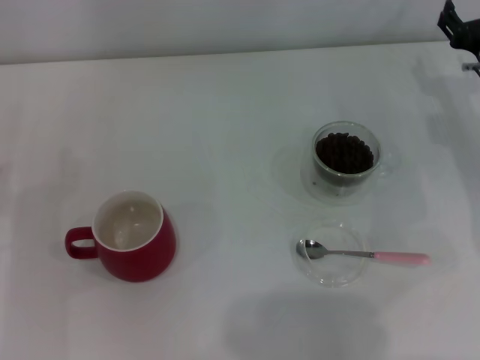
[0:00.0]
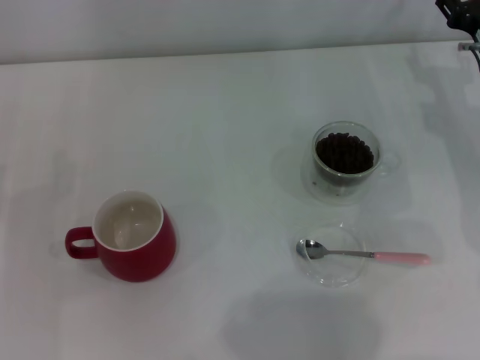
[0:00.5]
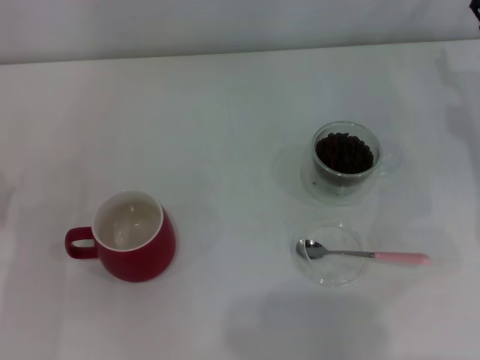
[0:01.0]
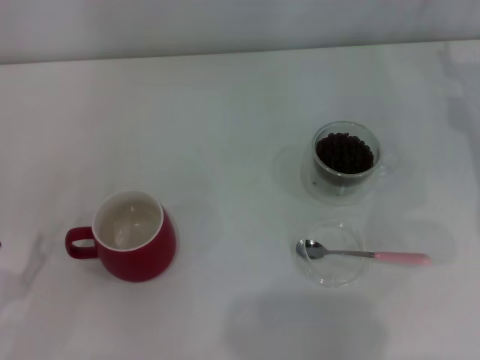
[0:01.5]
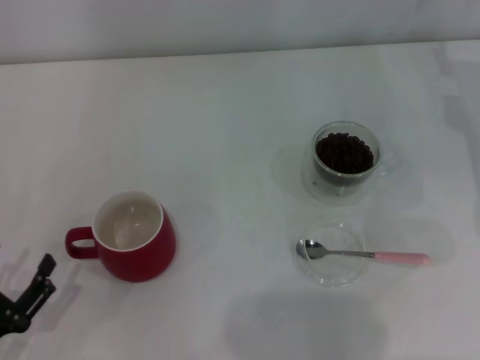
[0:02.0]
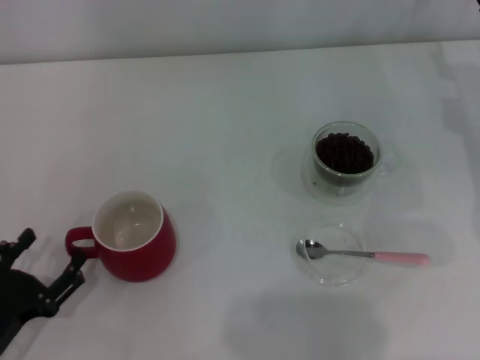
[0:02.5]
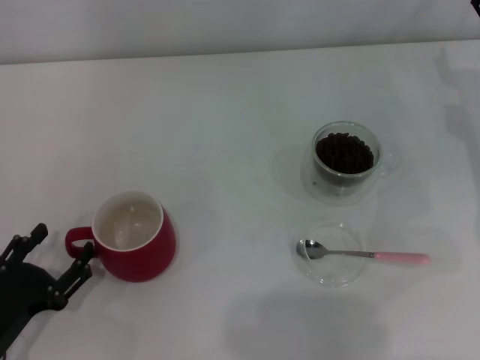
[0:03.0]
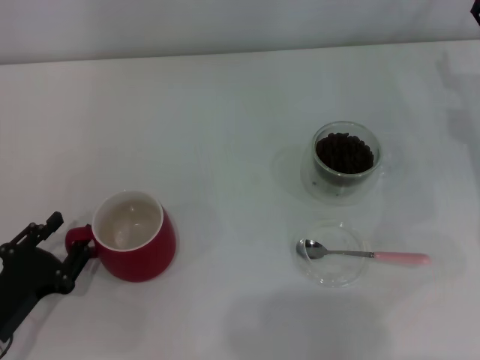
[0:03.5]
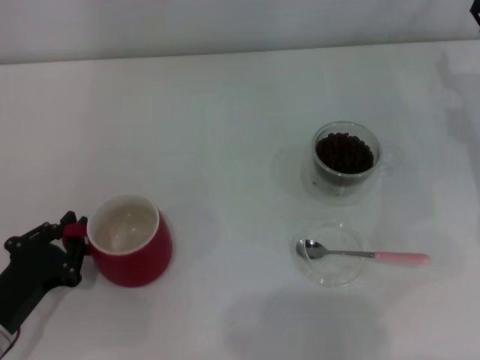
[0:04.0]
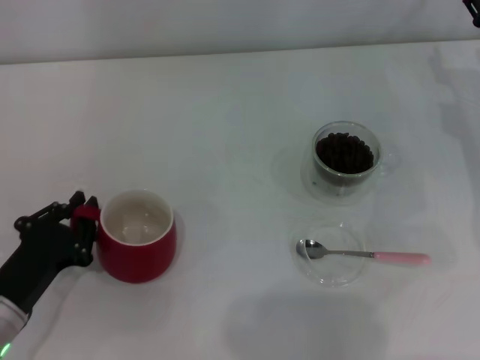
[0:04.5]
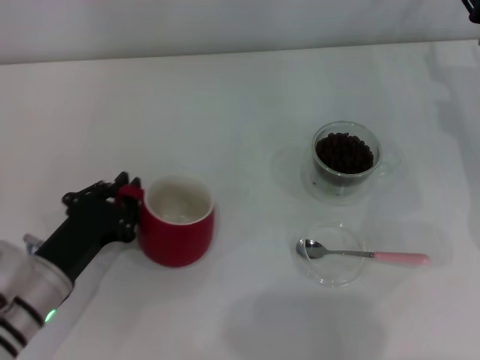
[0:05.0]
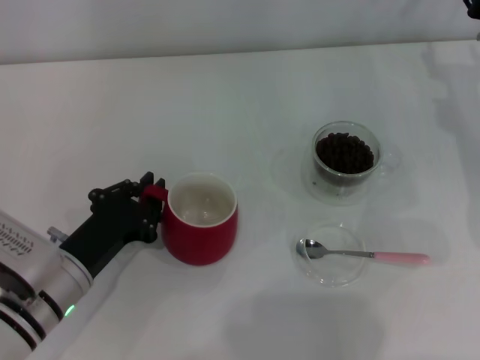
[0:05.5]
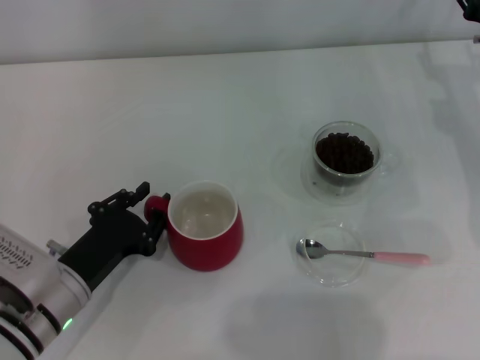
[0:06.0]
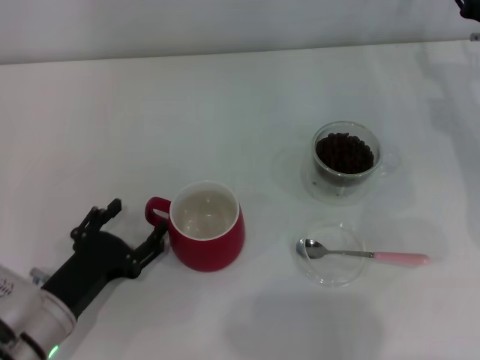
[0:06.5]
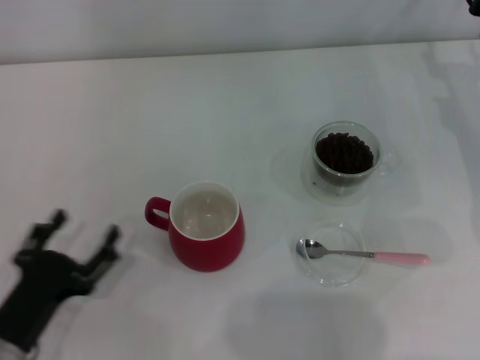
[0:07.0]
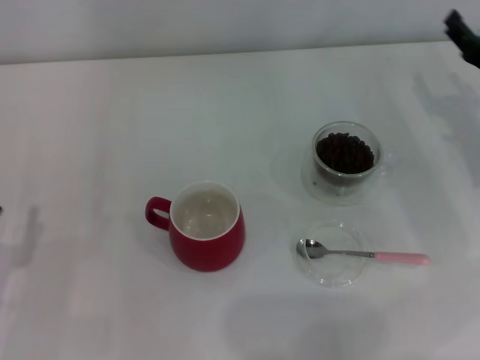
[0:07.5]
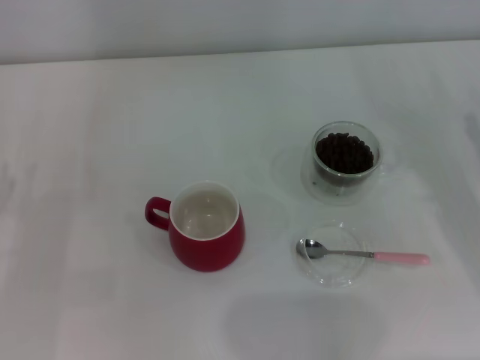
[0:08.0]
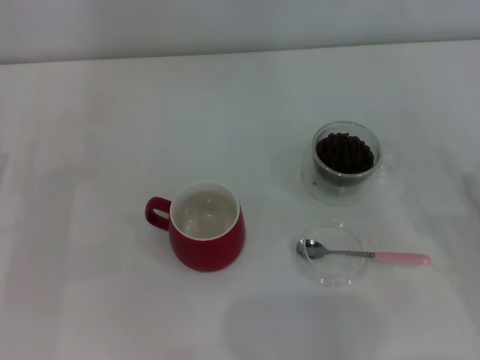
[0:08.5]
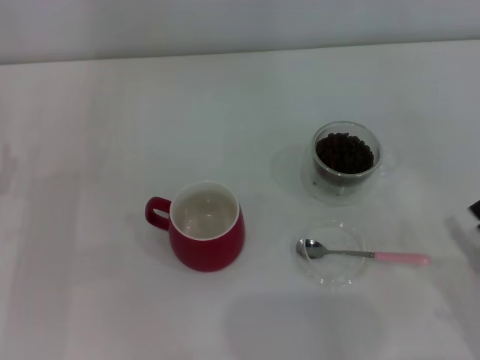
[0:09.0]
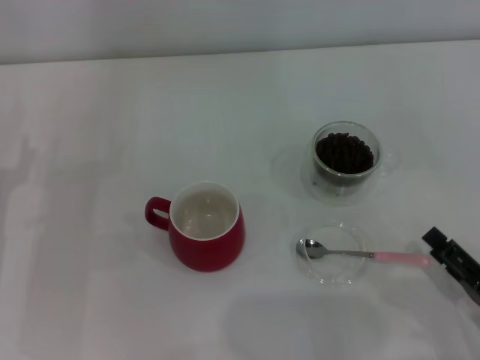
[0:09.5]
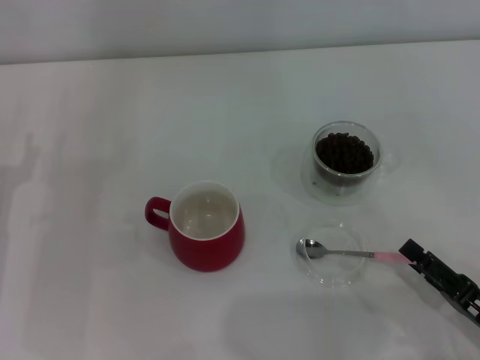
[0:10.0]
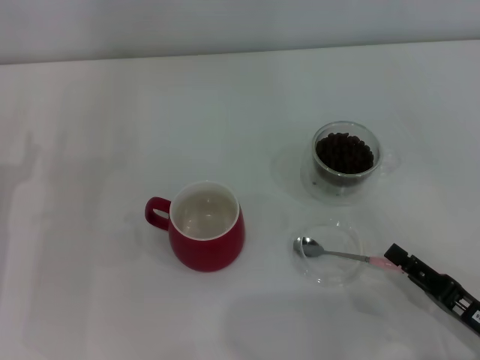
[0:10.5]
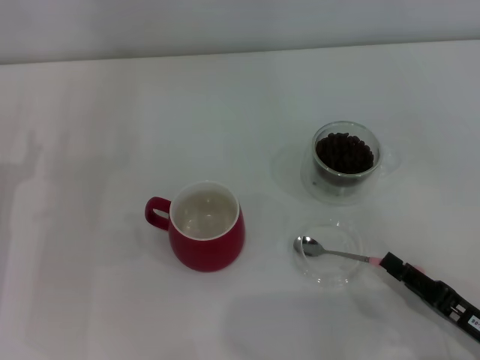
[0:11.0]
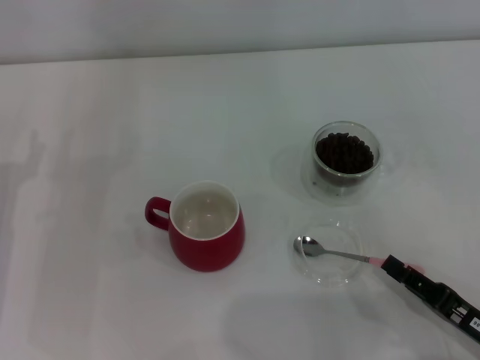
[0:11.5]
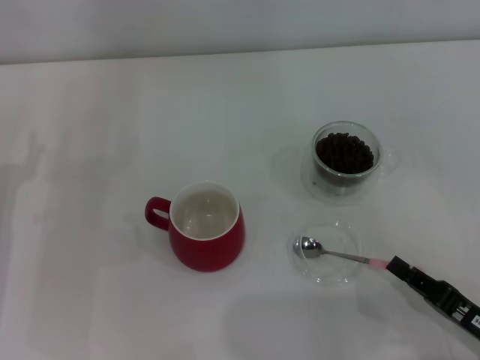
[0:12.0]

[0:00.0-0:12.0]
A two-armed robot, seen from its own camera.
Task of the whole recording: Use a pink spoon to take out the coffee beans from the glass and pour them into the red cup.
Step, 0:00.0 to 0:06.5: Move the cup to the center of view with the left gripper.
0:00.0 to 0:02.0: The left gripper is displaced backward by roughly 10 cm.
0:02.0 to 0:04.0: The left gripper goes roughly 5 cm forward, and closes its fingers.
0:04.0 to 0:06.0: The left gripper heads to the right, covering roughly 5 cm.
0:06.0 to 0:08.0: The right gripper moves backward, about 15 cm, while the left gripper travels to the left by roughly 10 cm, and opens up.
0:08.0 to 0:10.0: The right gripper travels backward and to the left by about 15 cm.
0:10.0 to 0:12.0: The right gripper closes.

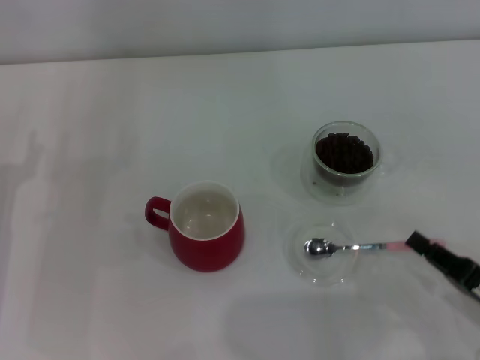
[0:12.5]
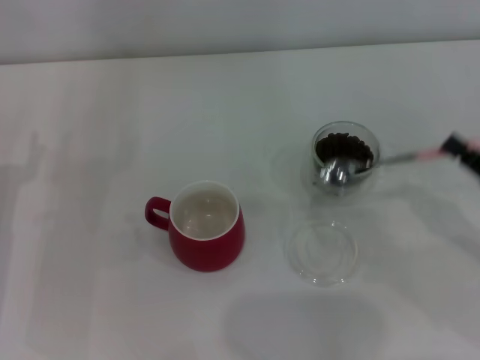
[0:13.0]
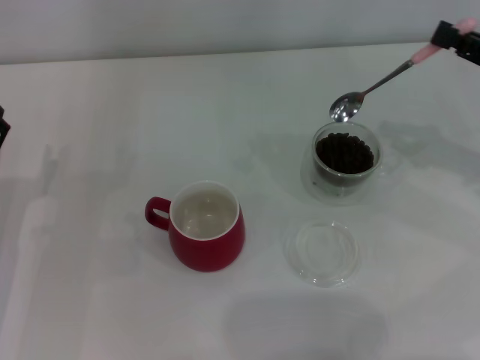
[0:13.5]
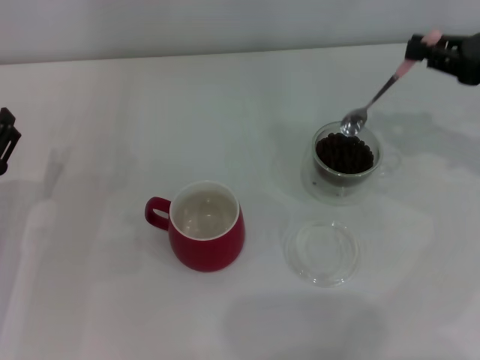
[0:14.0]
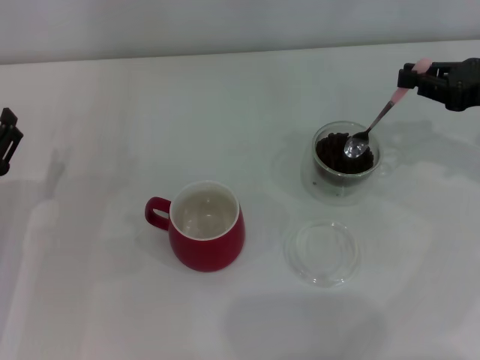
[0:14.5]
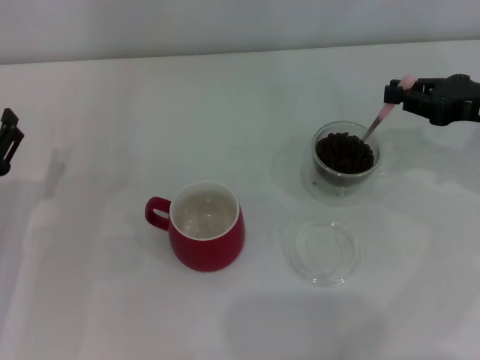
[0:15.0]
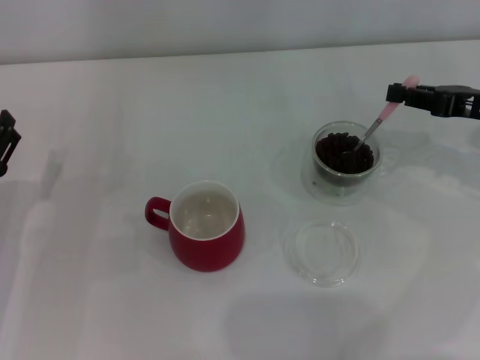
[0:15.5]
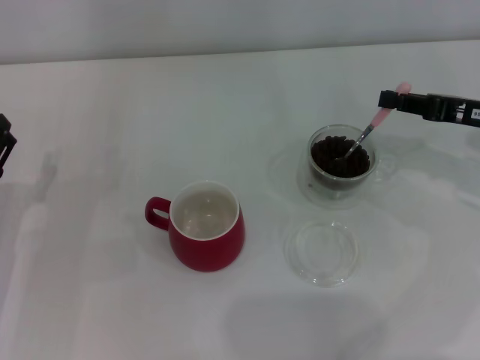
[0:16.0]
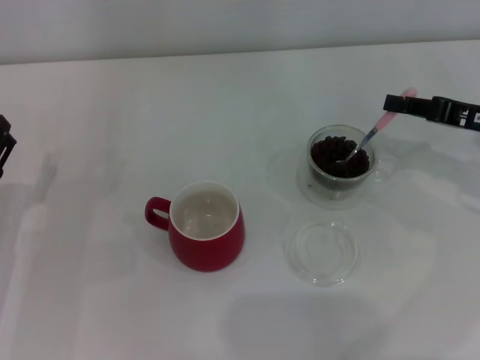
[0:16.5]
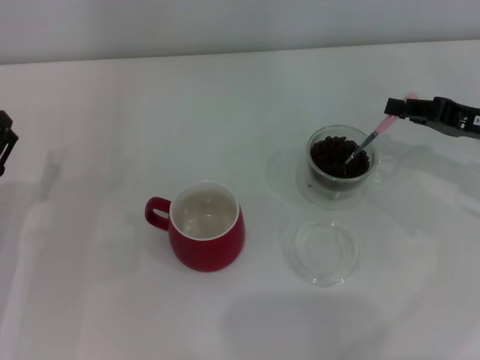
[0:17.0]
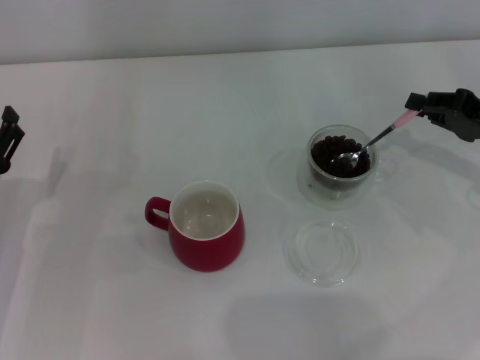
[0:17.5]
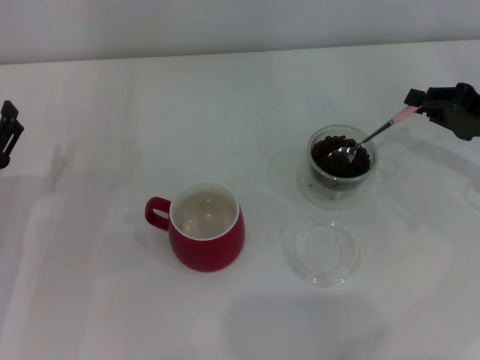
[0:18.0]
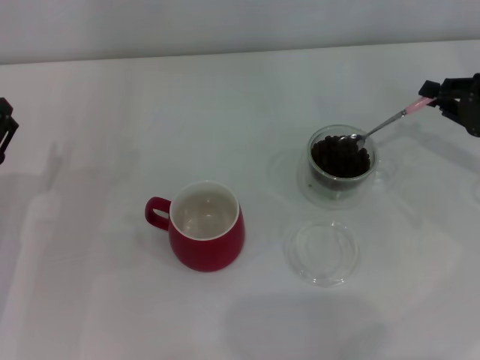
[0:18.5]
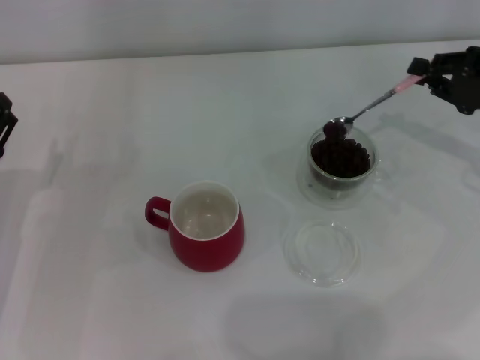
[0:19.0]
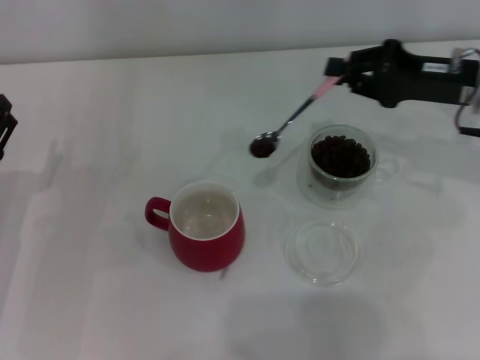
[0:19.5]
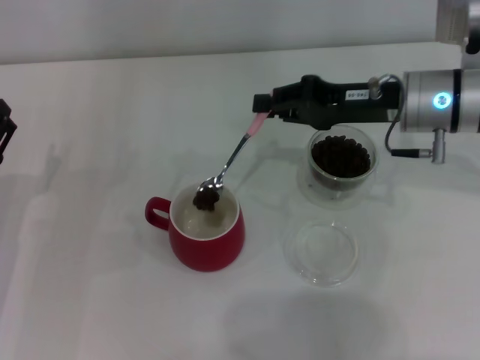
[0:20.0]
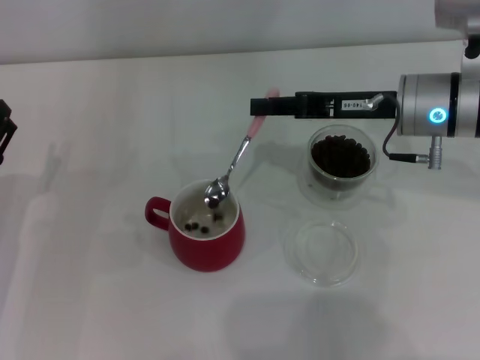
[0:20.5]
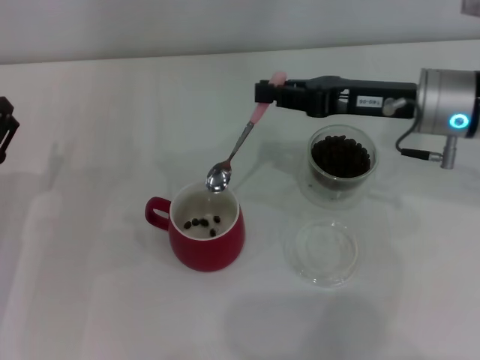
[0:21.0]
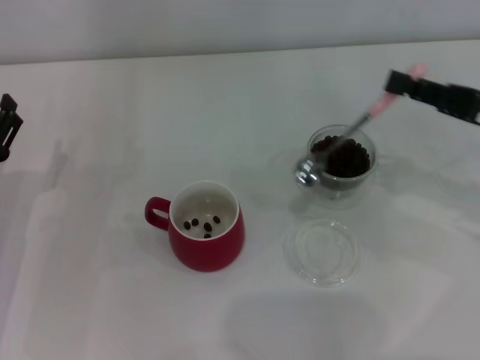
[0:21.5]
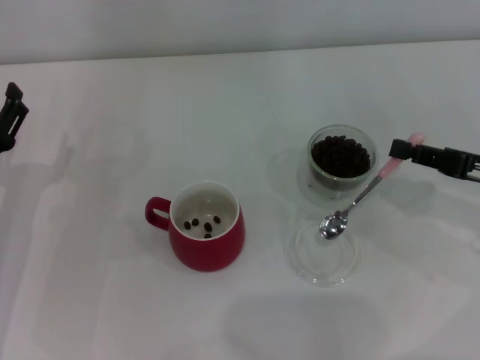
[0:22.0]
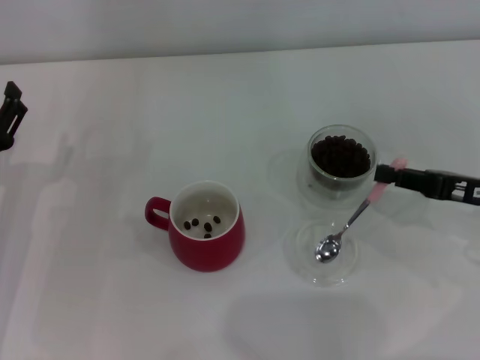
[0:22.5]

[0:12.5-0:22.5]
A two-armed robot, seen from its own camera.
Task of the whole recording: Use a pink spoon to take out the coffee beans from the glass and pour them into the red cup.
Step, 0:13.0 to 0:20.5: Scoop a spoonful of beans into the cup with the right gripper.
0:12.5 to 0:14.5: The right gripper moves forward and upward, approximately 25 cm.
0:18.5 to 0:20.5: The right gripper travels to the left by approximately 15 cm.
0:20.5 to 0:22.5: The right gripper heads to the right, backward and downward, covering roughly 15 cm.

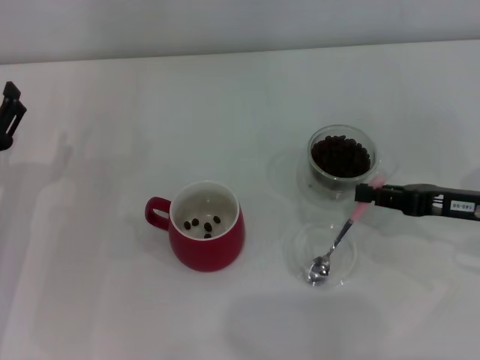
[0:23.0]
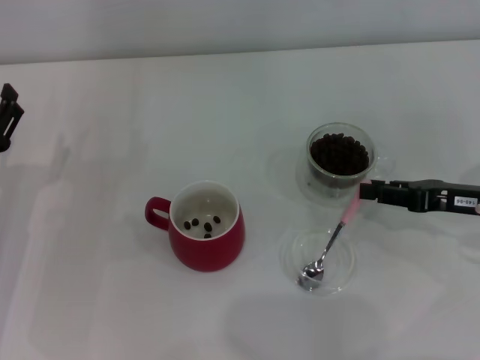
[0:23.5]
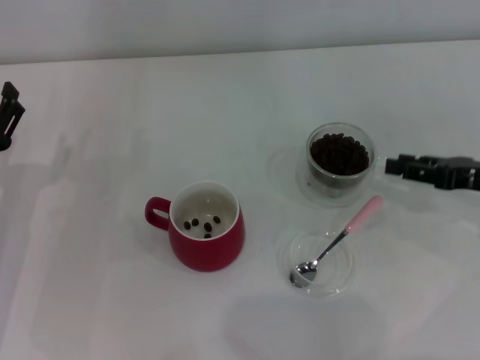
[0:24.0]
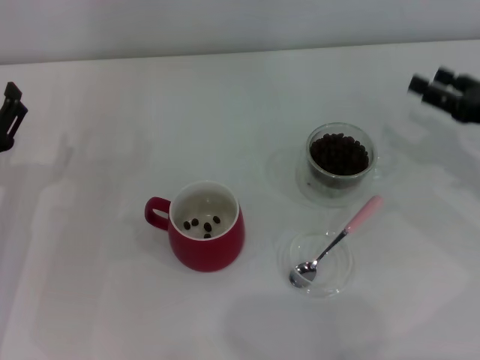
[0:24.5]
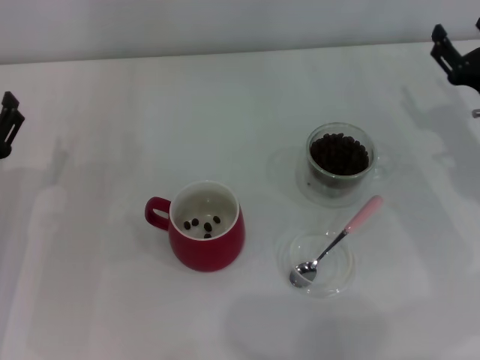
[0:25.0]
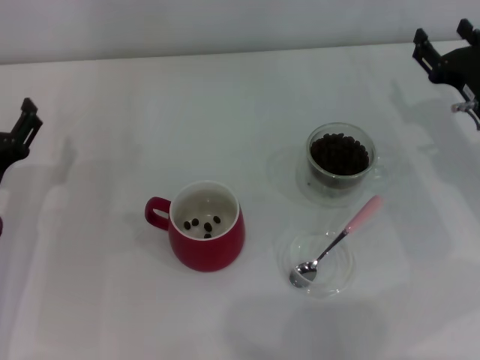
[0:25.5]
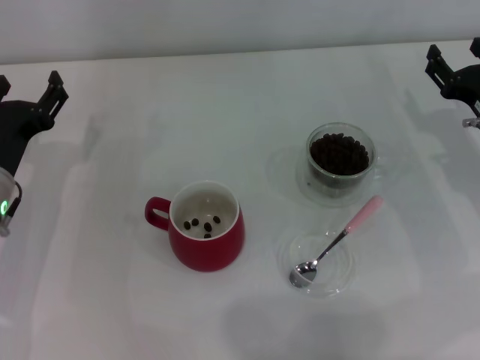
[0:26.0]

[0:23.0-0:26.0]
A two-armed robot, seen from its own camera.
Task of the whole recording: Use a pink spoon to take out the coffee beans from the glass and pour them into the red cup.
0:23.0 to 0:24.5: The right gripper shifts by roughly 5 cm, and opens up.
0:24.5 to 0:26.0: The right gripper changes place by about 5 cm.
